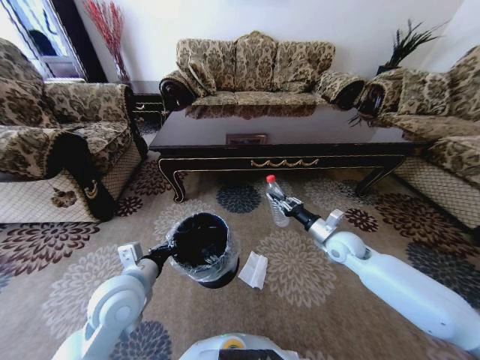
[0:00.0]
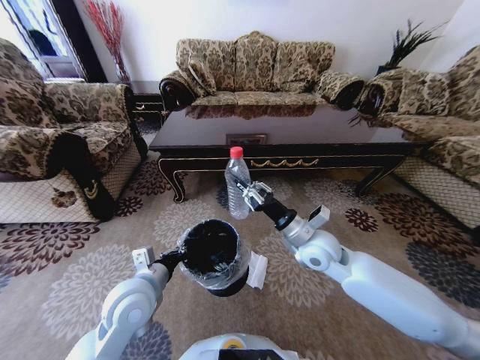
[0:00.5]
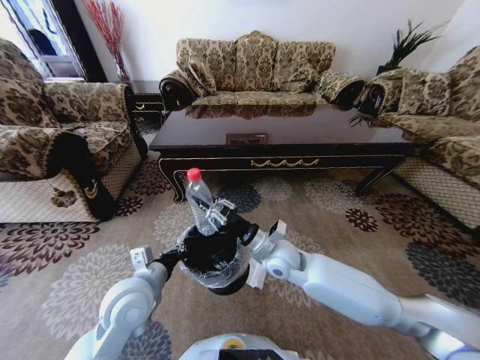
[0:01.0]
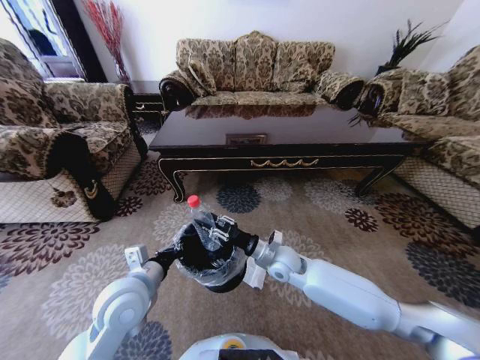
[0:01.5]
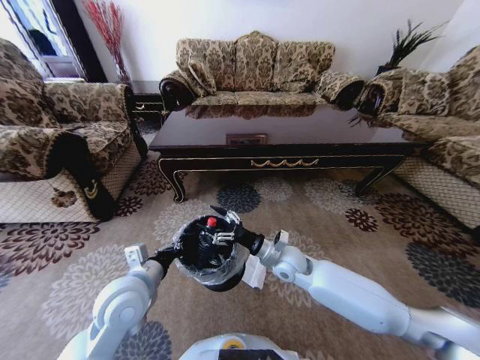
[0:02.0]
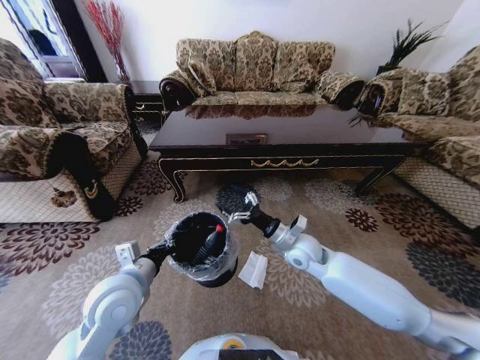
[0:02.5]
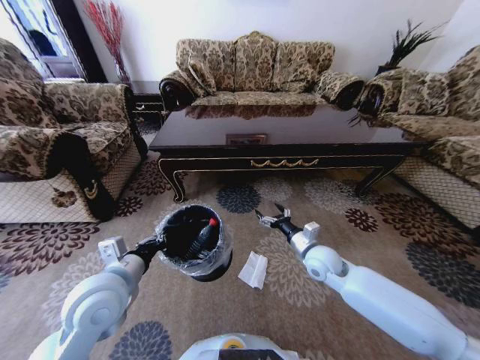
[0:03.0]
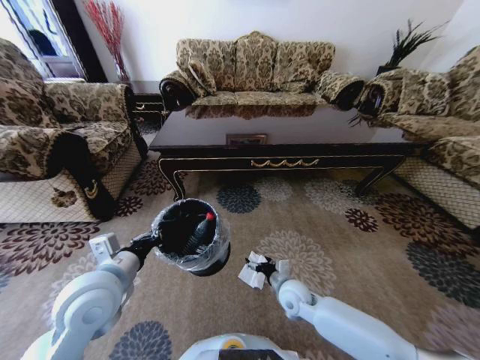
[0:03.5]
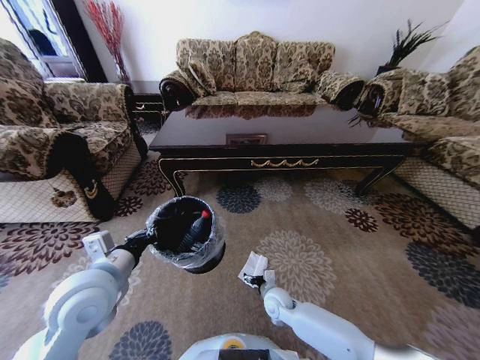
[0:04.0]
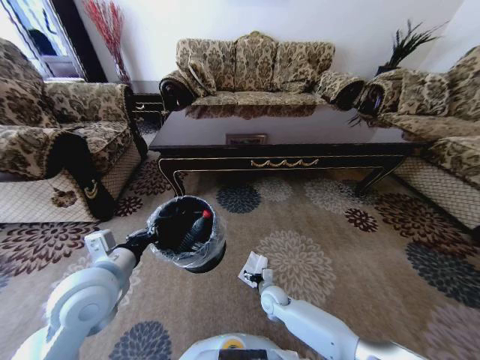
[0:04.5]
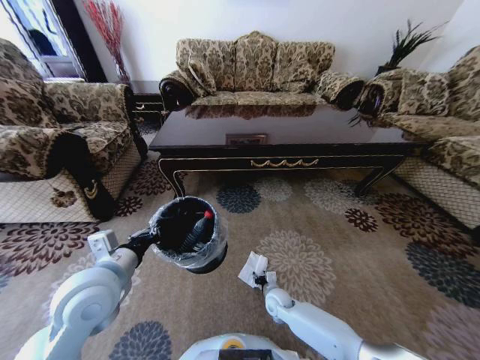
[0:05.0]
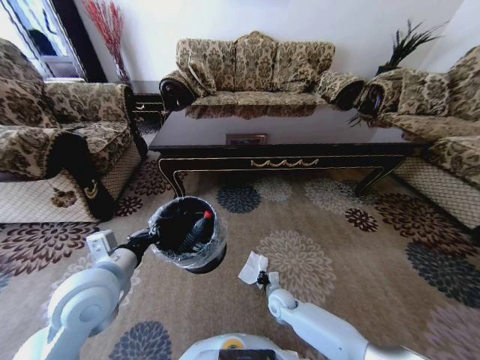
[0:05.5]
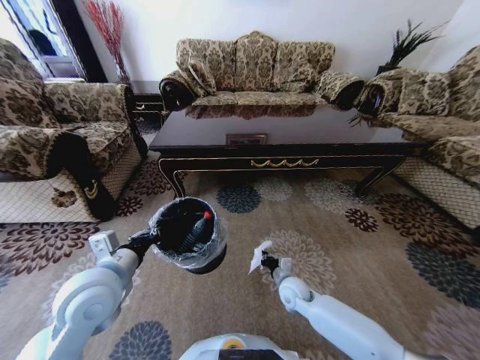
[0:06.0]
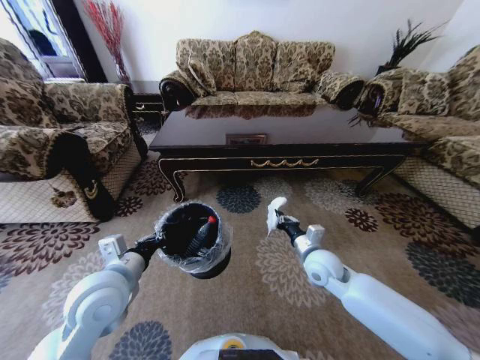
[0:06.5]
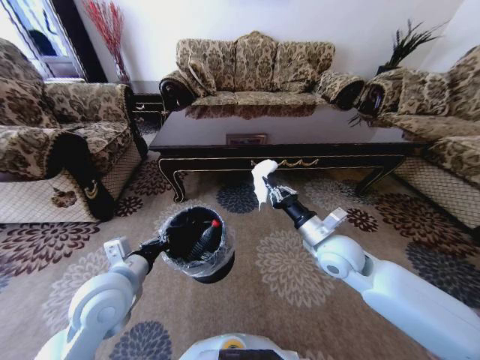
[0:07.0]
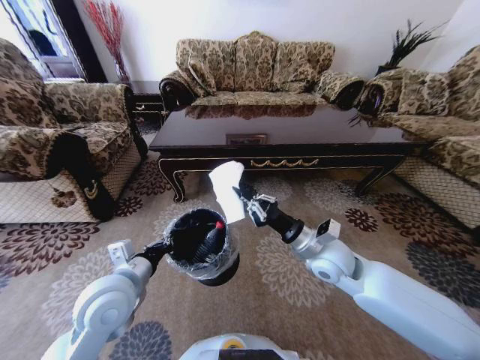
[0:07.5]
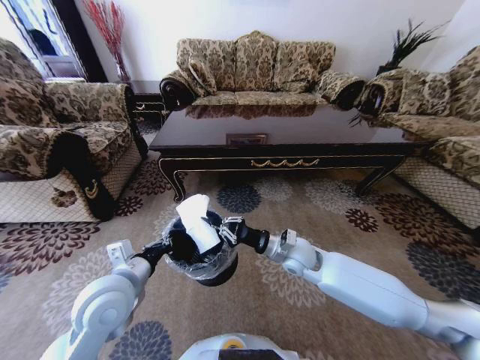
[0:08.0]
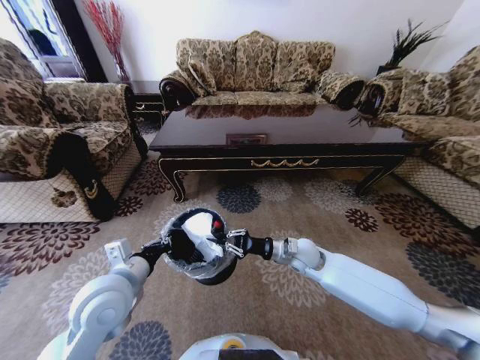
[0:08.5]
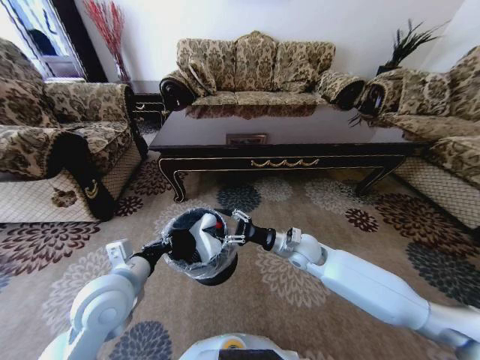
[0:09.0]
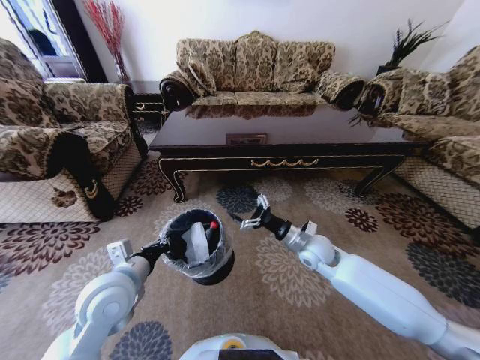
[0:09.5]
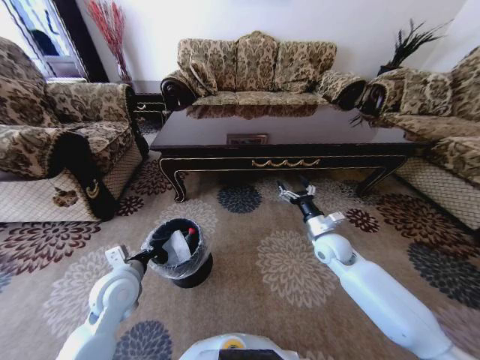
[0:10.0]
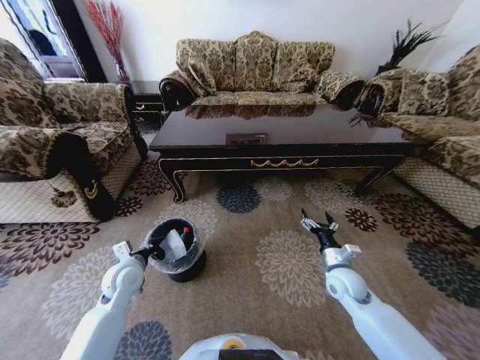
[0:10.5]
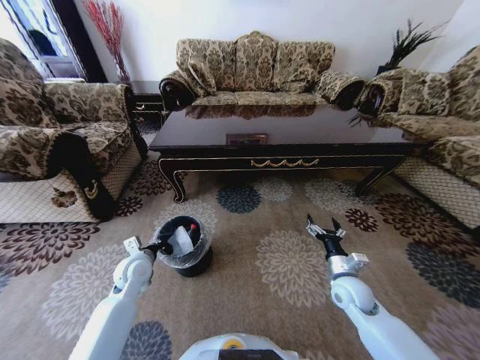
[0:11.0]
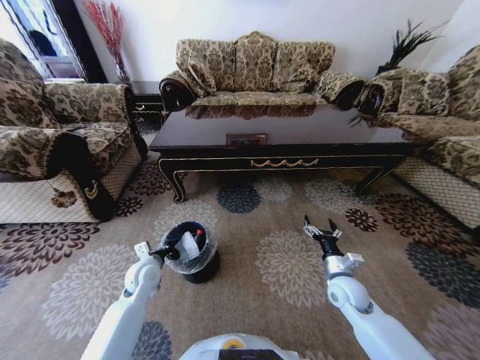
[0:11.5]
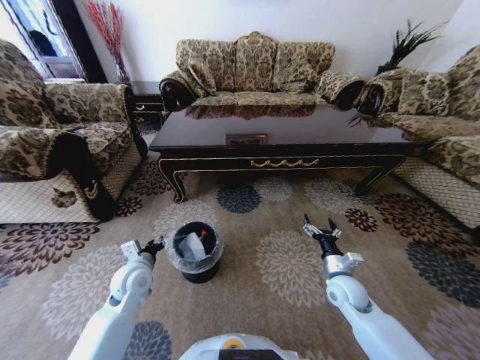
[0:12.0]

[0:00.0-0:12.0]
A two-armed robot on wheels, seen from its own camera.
Task of the whole recording: Move to the front of the table and pick up the trash from the floor, then place it into the trash bin.
0:00.0 to 0:02.0: The right gripper shifts roughly 20 cm to the left, and opens up.
0:02.0 to 0:04.0: The left gripper heads upward, covering roughly 5 cm, while the right gripper travels downward by some 20 cm.
0:04.0 to 0:06.0: The right gripper ends up approximately 5 cm from where it was, and closes up.
0:06.0 to 0:08.0: The right gripper travels upward by approximately 20 cm.
0:08.0 to 0:10.0: The left gripper goes about 5 cm downward. Meanwhile the right gripper moves to the right, roughly 15 cm, and opens up.
0:10.0 to 0:12.0: The right gripper is displaced backward and downward by approximately 10 cm.

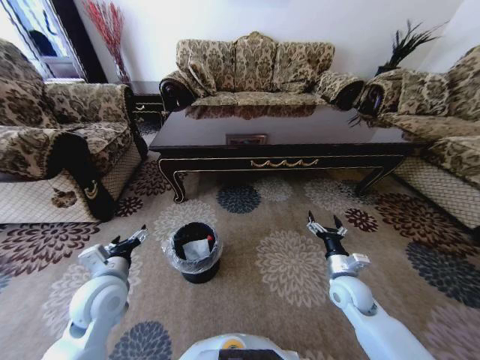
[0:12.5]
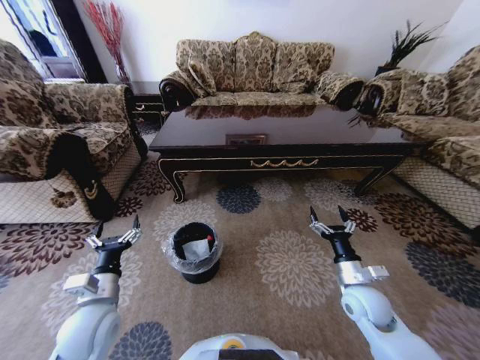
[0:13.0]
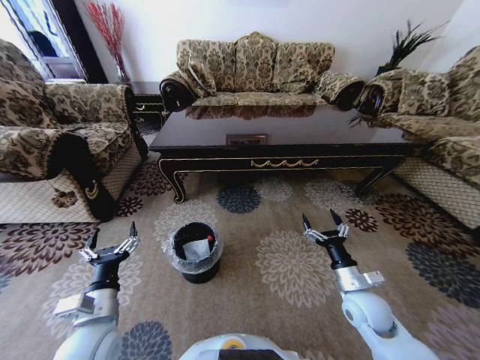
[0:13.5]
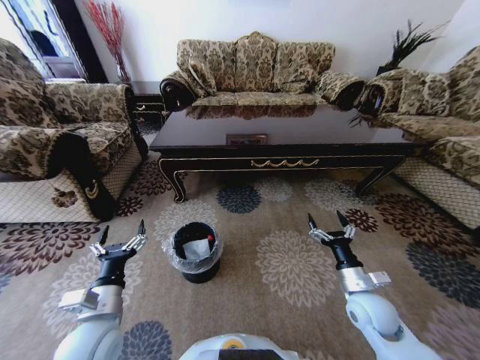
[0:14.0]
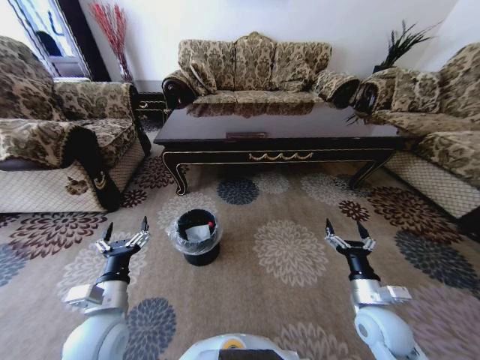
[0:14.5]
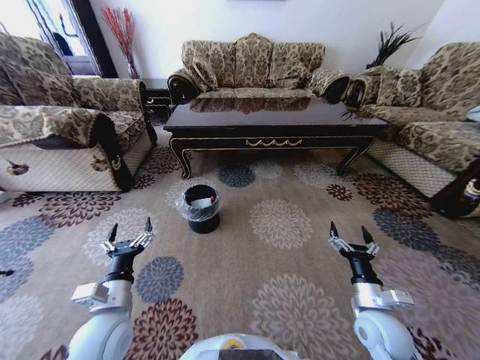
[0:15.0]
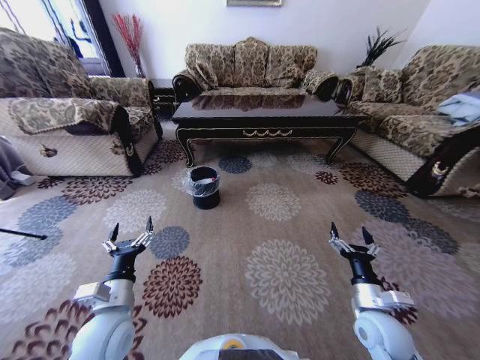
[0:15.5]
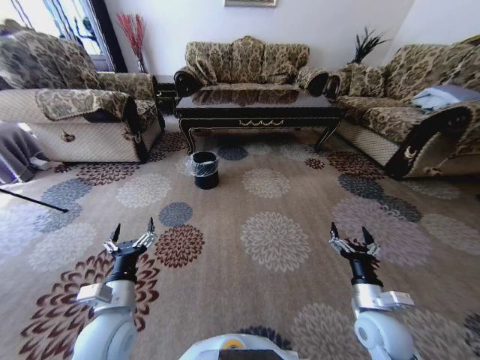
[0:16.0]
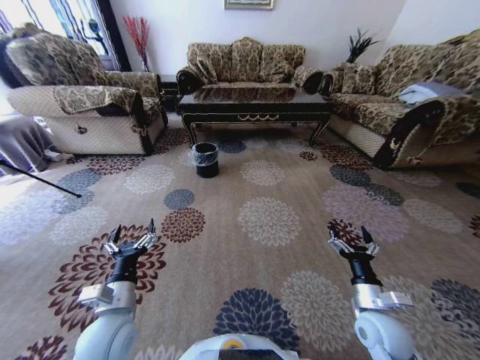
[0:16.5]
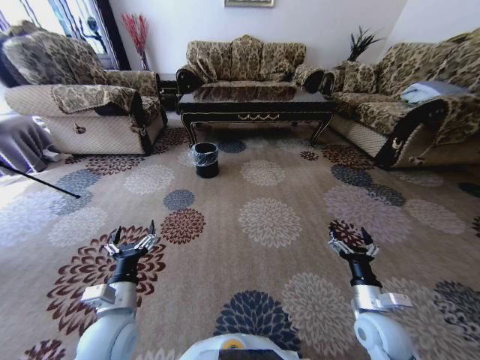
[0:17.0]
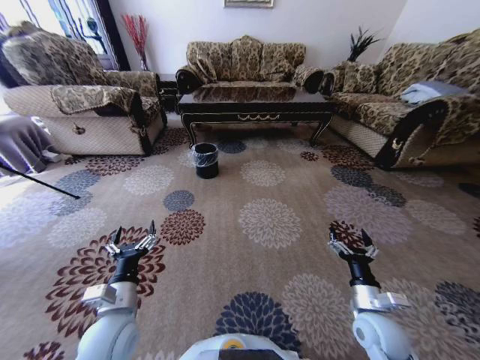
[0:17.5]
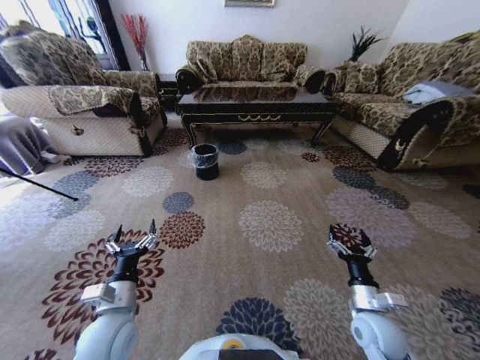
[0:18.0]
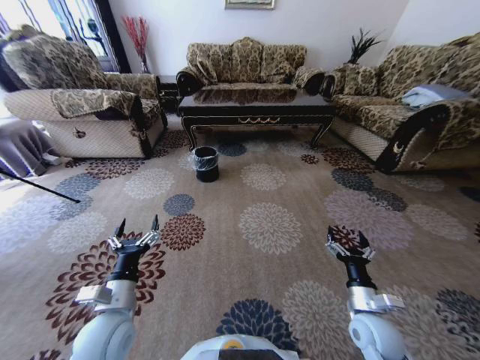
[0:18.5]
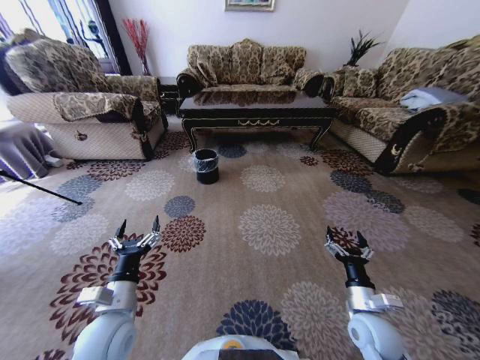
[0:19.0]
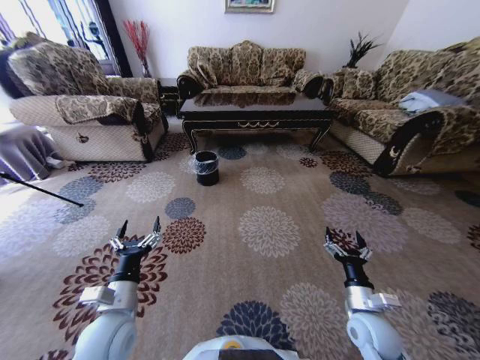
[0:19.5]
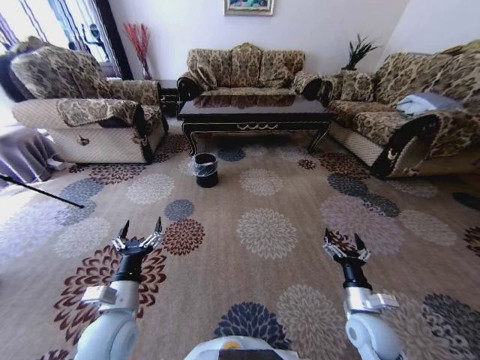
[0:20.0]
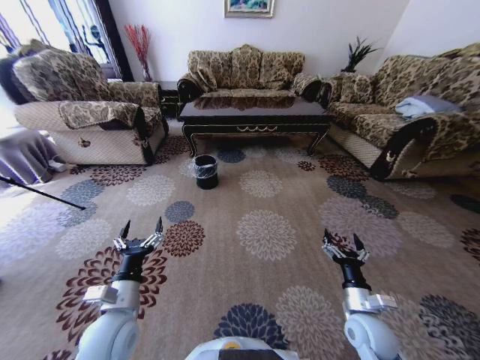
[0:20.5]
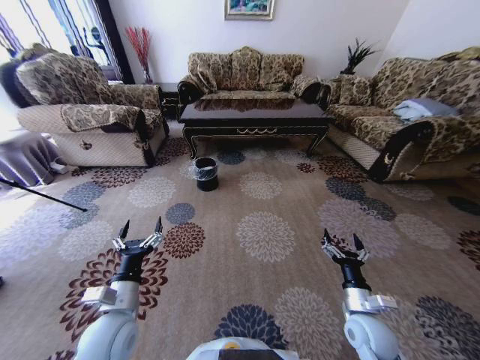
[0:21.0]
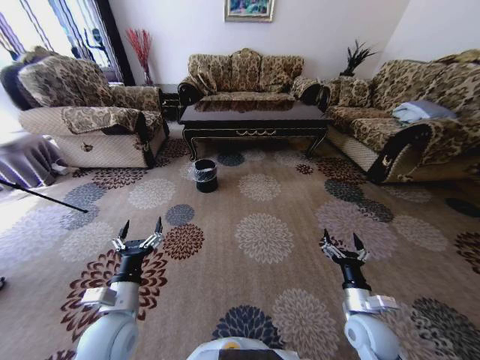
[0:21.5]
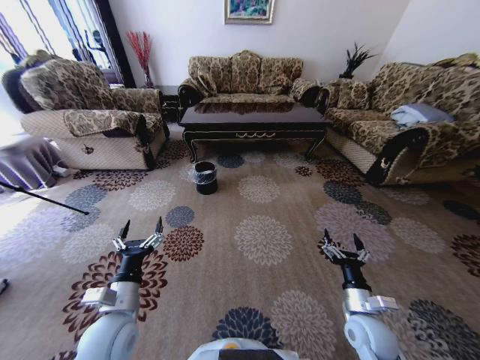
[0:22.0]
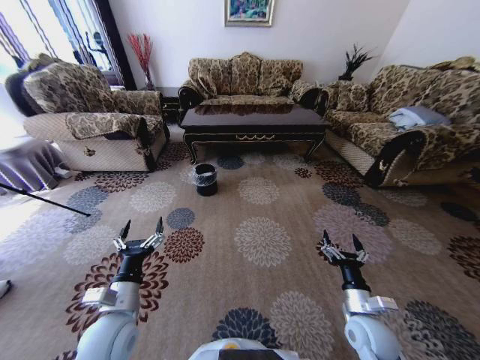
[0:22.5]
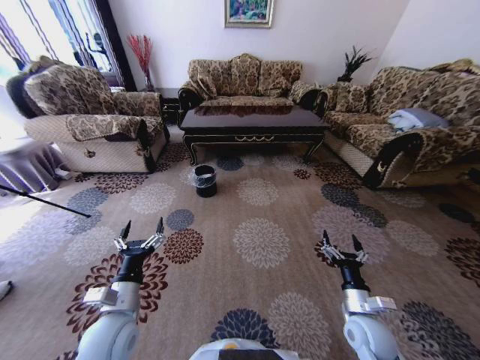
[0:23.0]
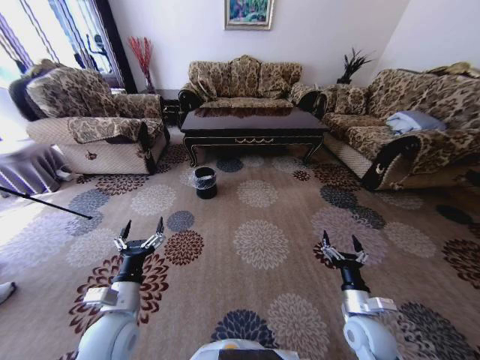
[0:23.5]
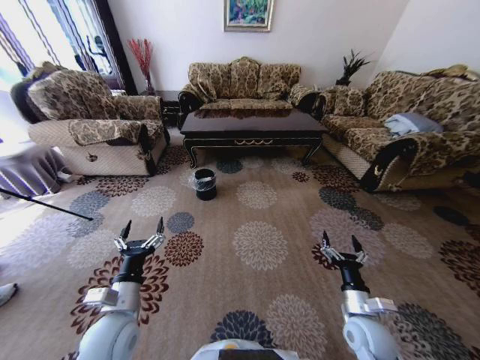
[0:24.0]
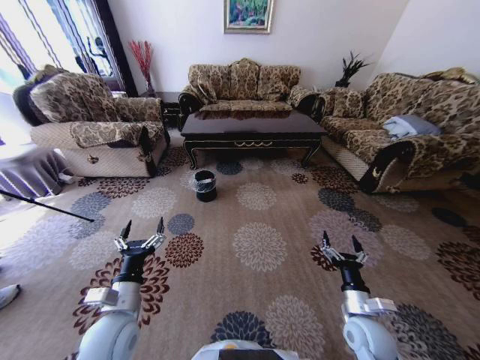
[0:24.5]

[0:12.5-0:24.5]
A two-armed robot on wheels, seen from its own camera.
Task of the whole recording: Move to the front of the table and pick up the trash from the floor, then place it into the trash bin.
0:12.5 to 0:14.5: Both grippers travel together backward, some 5 cm.

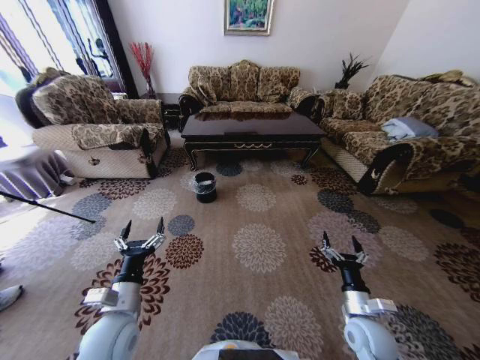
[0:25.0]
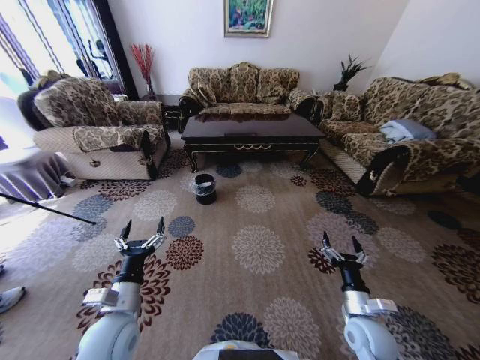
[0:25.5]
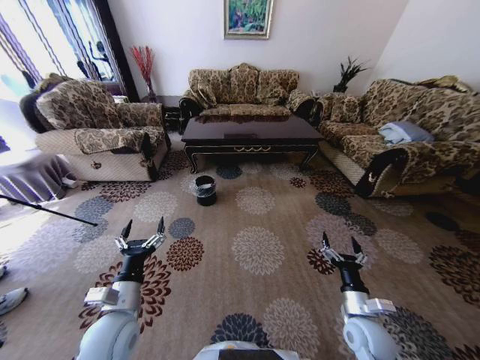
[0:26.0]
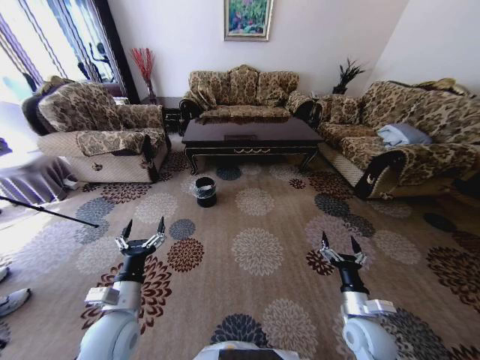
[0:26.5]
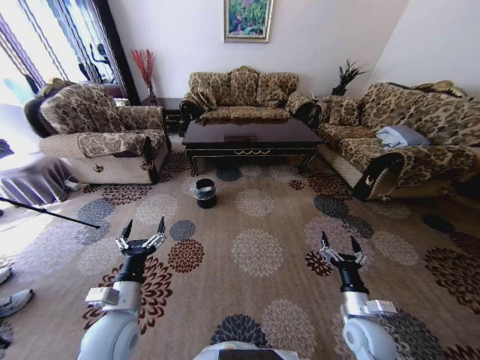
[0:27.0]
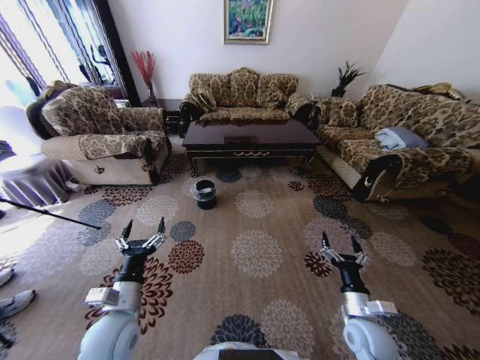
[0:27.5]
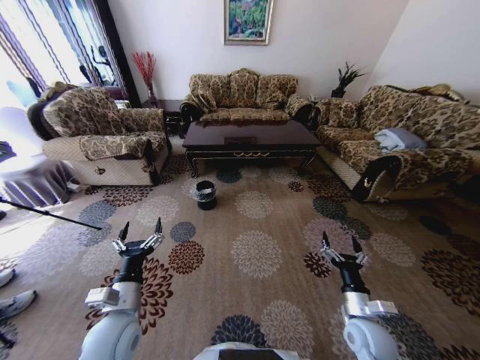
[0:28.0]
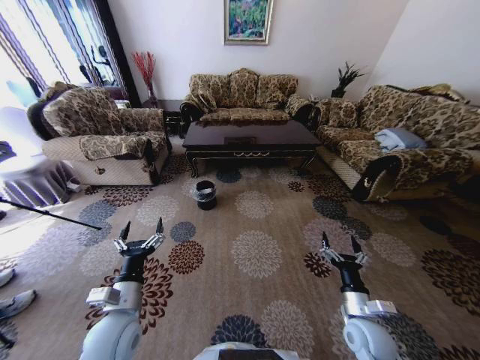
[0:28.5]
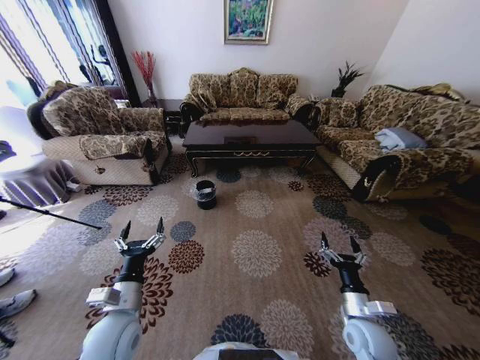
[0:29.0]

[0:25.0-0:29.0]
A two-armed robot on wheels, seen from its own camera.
Task of the whole recording: Move to the front of the table and pick up the trash from the floor, then place it into the trash bin.
0:27.0 to 0:29.0: Both grippers stay put.
